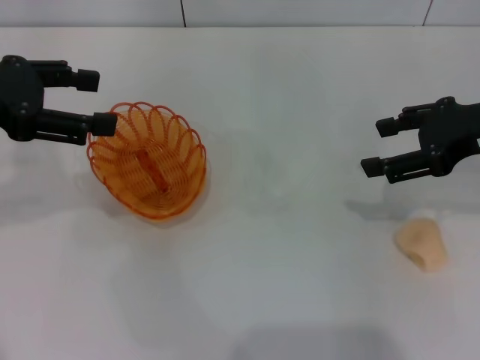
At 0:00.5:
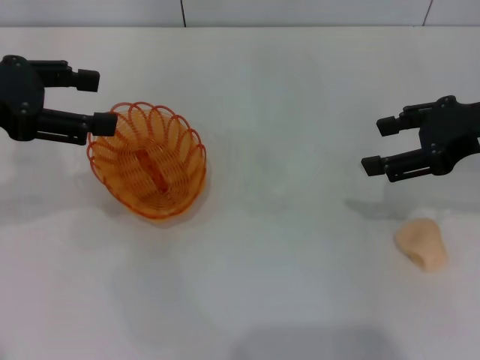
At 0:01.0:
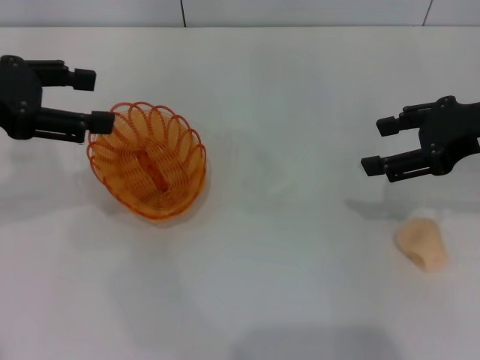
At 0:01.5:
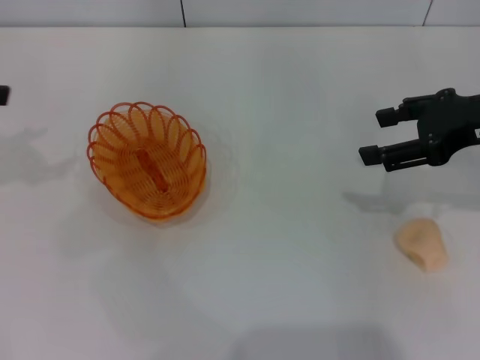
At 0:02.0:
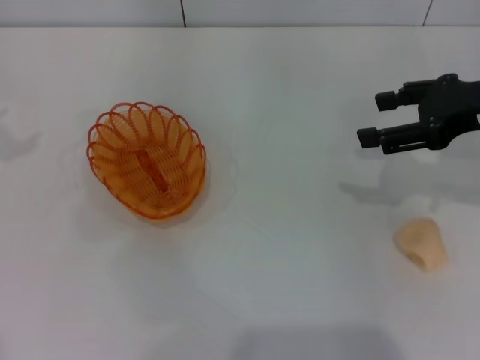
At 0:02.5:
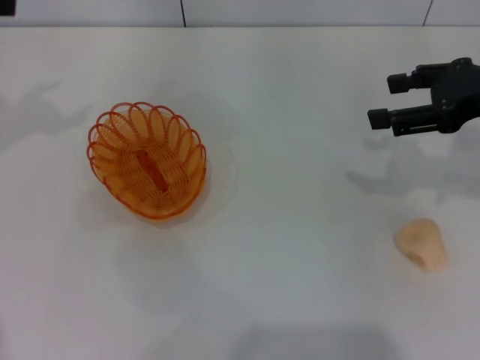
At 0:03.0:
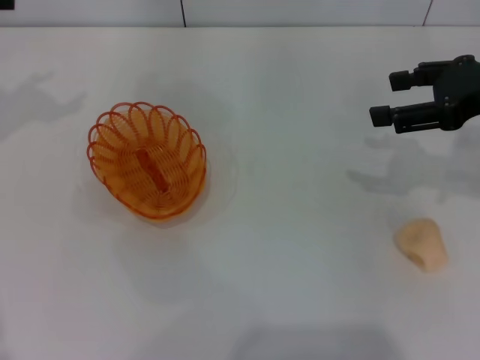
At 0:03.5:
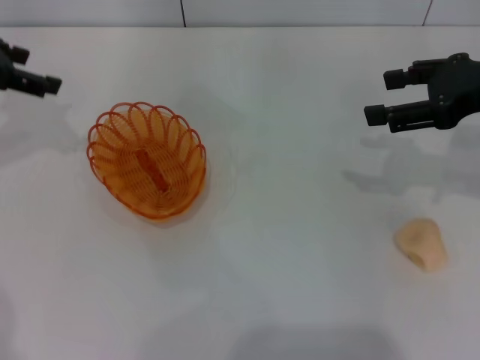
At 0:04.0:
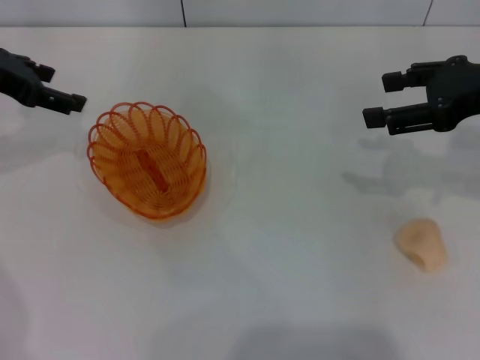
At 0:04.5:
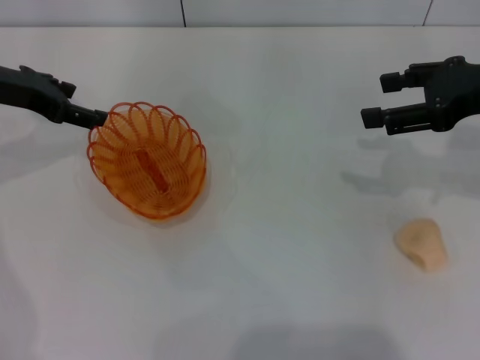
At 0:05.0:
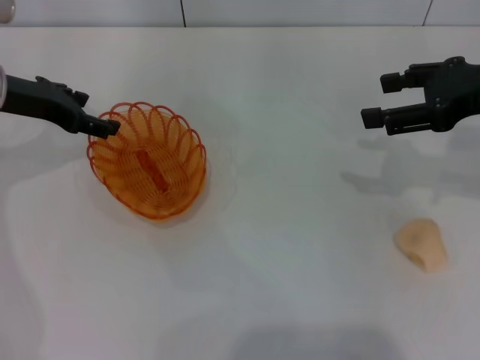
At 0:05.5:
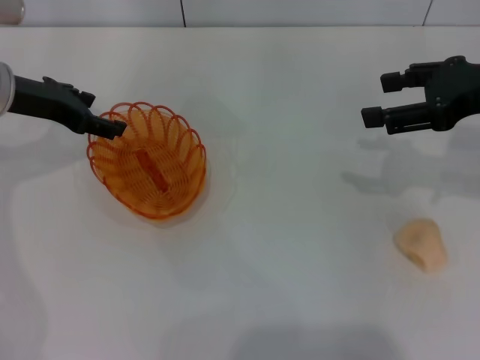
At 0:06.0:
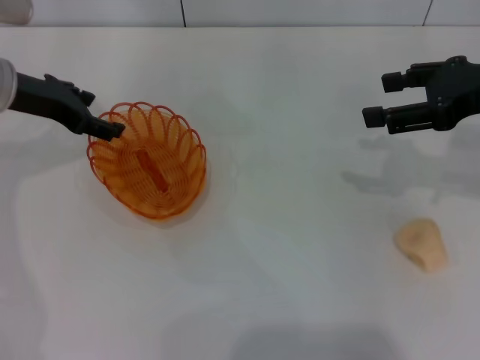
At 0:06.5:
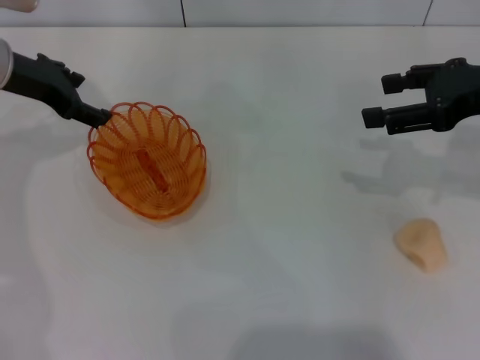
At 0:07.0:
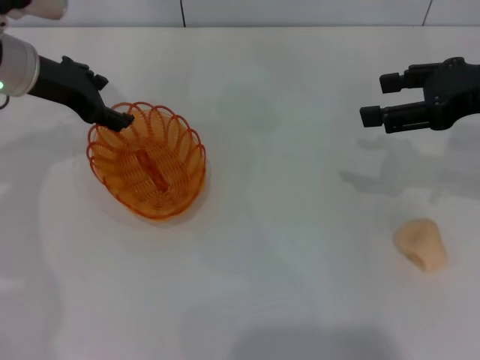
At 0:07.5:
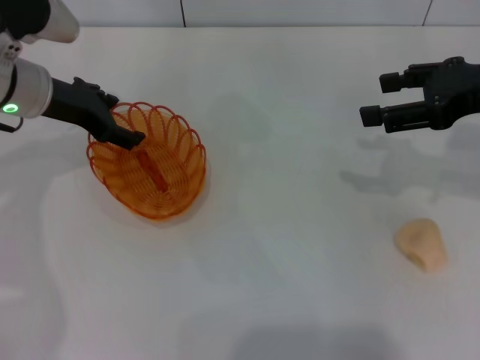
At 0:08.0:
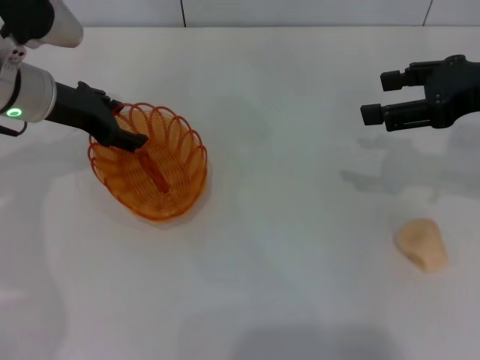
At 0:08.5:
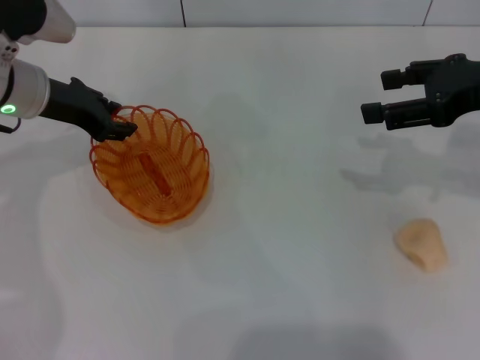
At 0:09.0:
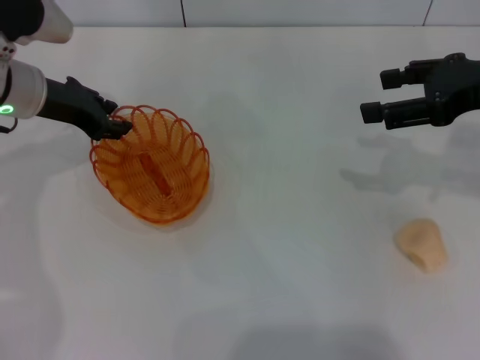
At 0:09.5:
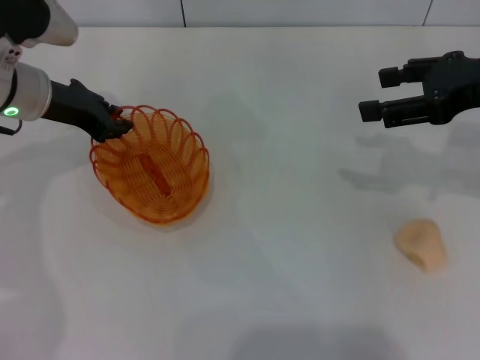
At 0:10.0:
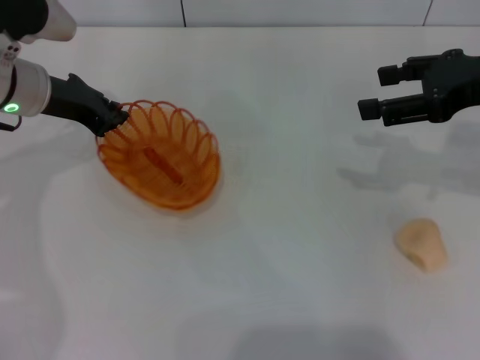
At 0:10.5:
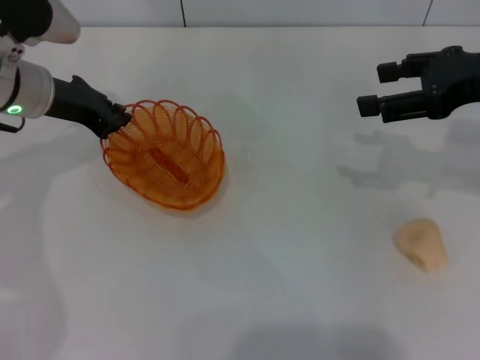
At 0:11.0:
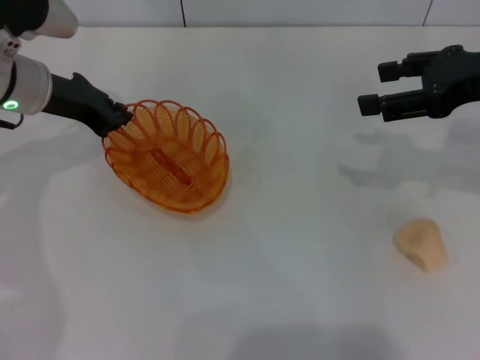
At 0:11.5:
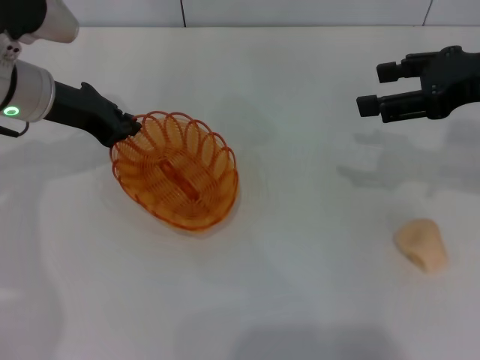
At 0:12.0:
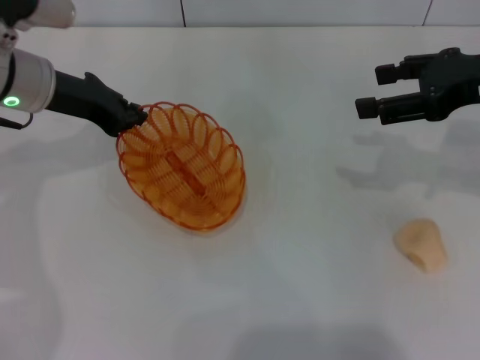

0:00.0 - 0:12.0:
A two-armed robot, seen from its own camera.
0:00.0 - 0:02.0: The left gripper travels to the left by roughly 10 cm.
0:02.0 - 0:04.0: The left gripper moves to the right, approximately 10 cm.
0:04.0 - 0:06.0: The left gripper shifts by about 5 cm.
0:06.0 - 0:08.0: There are only small adjustments of the grippers.
0:08.0 - 0:10.0: The left gripper closes.
0:10.0 - 0:12.0: The grippers make only small movements.

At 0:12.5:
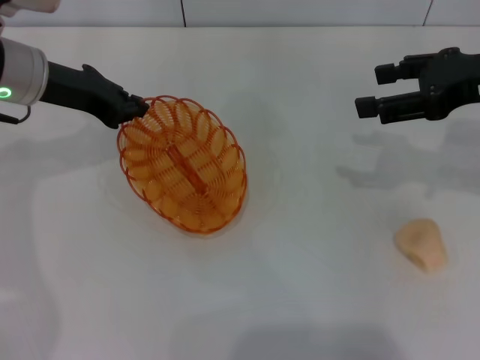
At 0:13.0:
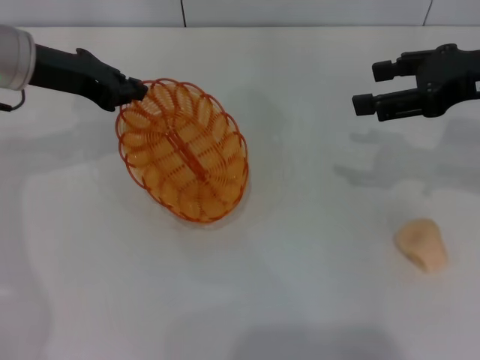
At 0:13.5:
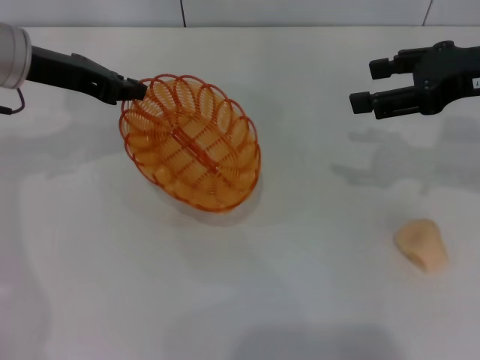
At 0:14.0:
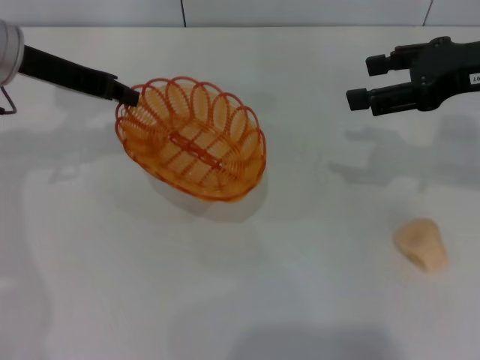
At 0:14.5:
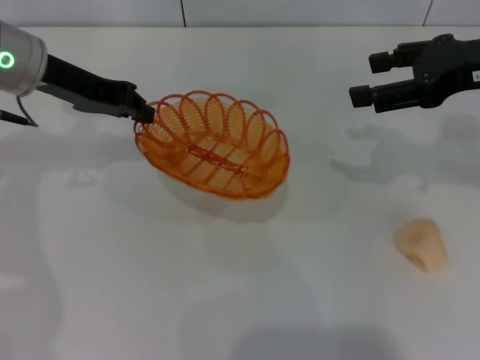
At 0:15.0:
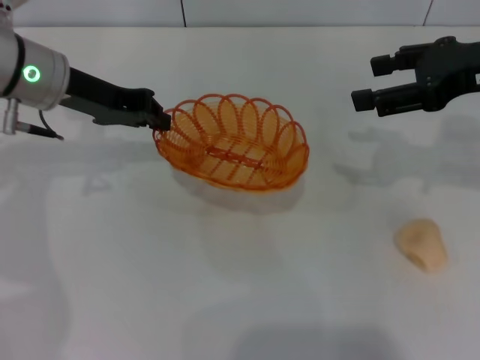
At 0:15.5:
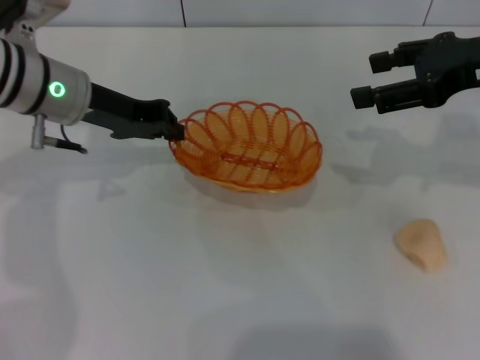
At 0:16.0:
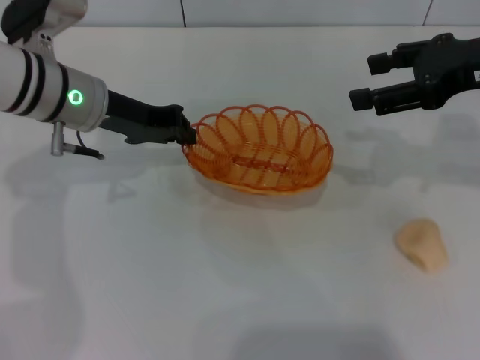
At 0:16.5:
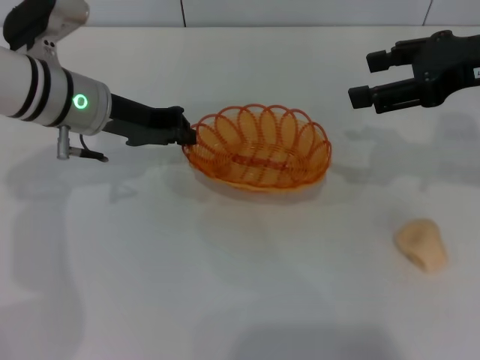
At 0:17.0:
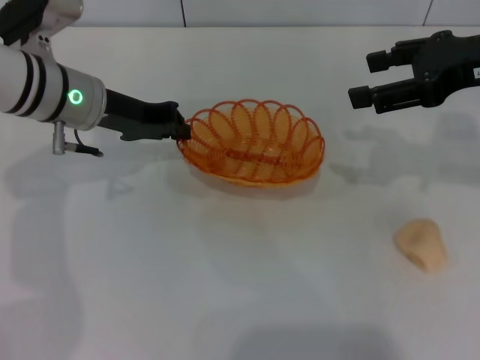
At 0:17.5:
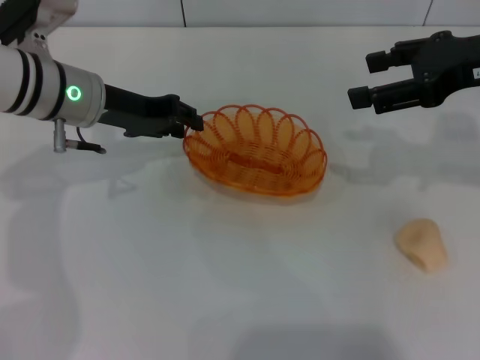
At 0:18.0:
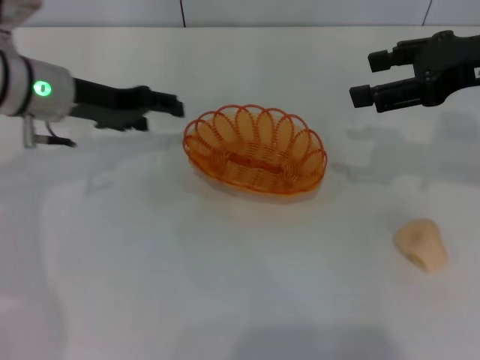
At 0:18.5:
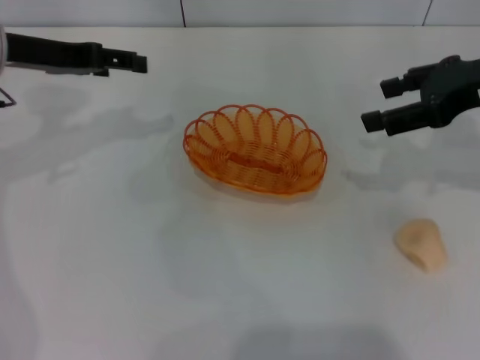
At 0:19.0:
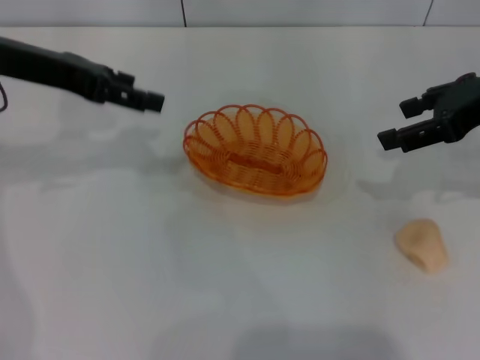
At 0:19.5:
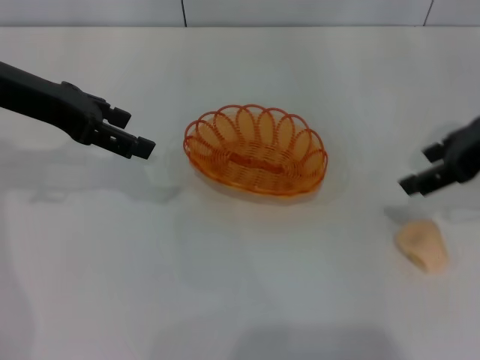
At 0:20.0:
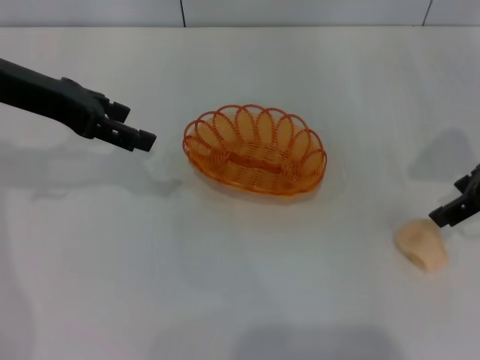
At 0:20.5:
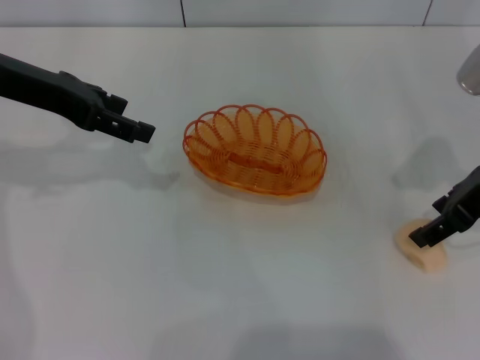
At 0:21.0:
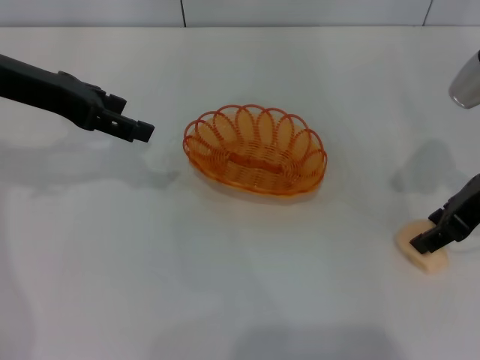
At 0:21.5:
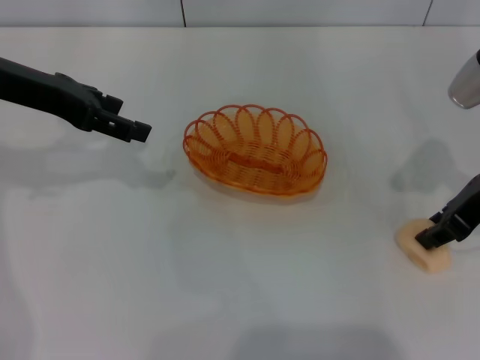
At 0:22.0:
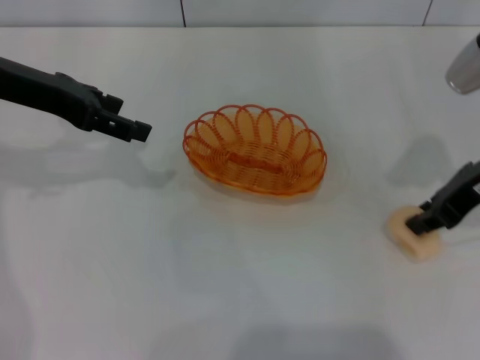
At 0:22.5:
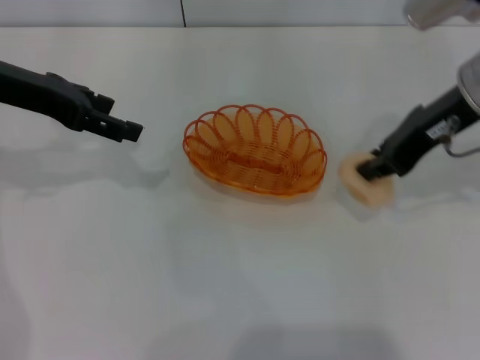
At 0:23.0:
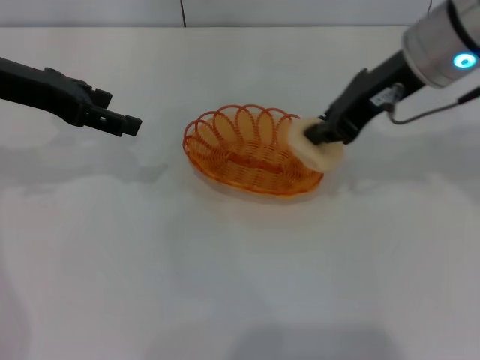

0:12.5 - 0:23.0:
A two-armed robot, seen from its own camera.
Step, 0:13.5 - 0:17.5: Place the basket in the center of view with the left gripper.
Step, 0:18.0 - 0:22.5: Pick up the egg yolk pastry with the right gripper.
0:14.5 - 0:16.5: The left gripper moves downward, roughly 5 cm.
0:16.5 - 0:19.0: The left gripper heads upward and to the left, covering roughly 10 cm, and opens.
0:19.0 - 0:21.0: The right gripper goes some 5 cm downward.
0:21.0 - 0:23.0: The right gripper moves to the left and upward, some 10 cm, and closes its fingers.

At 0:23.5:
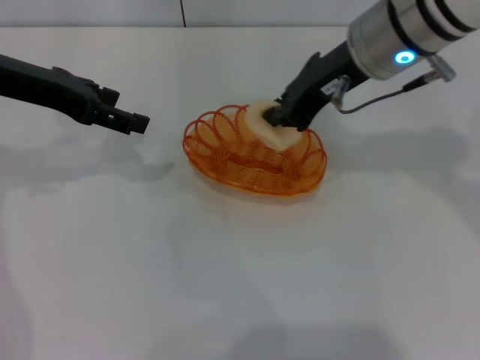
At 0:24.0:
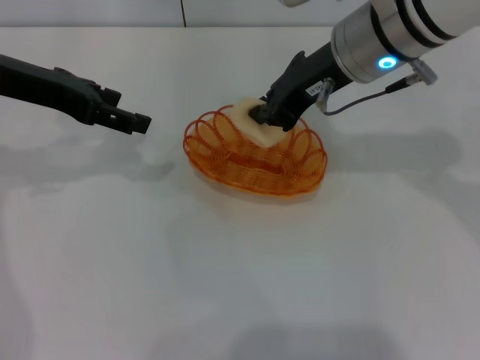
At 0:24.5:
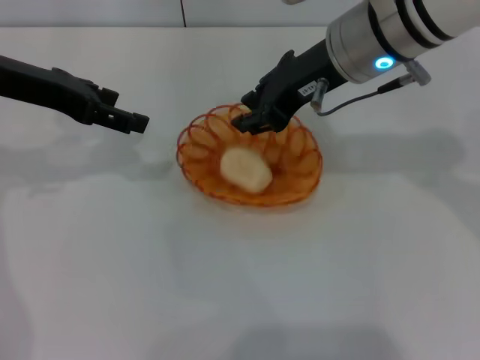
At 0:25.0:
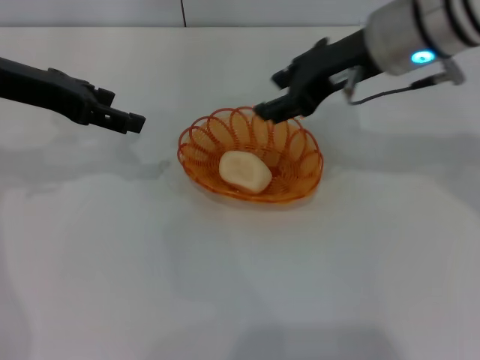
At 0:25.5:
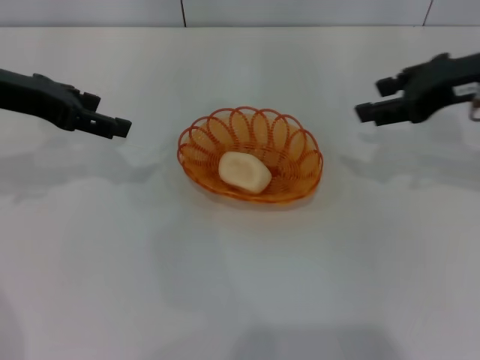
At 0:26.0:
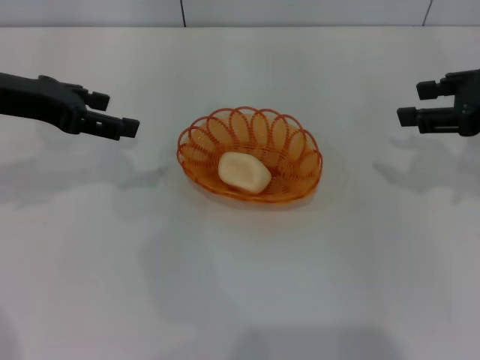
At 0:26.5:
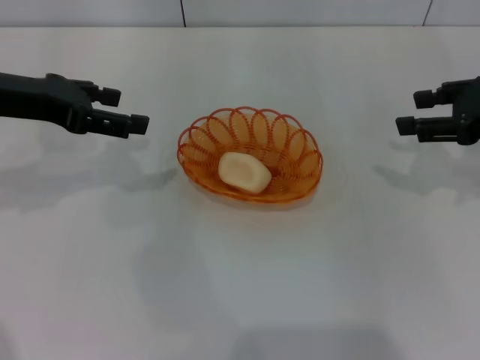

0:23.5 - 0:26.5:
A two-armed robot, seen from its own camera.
Step, 0:23.5 - 0:24.5: Place the egg yolk pastry into the basket with the right gripper.
0:23.5 - 0:25.0: The right gripper opens up.
0:25.0 - 0:26.5: The right gripper heads to the right, covering about 15 cm.
